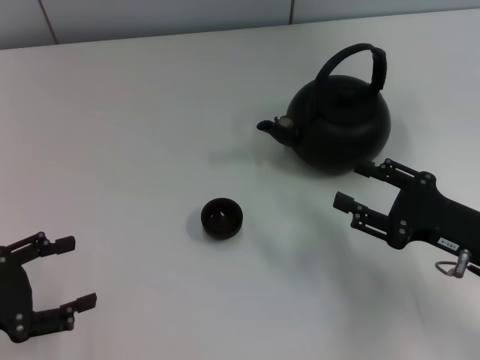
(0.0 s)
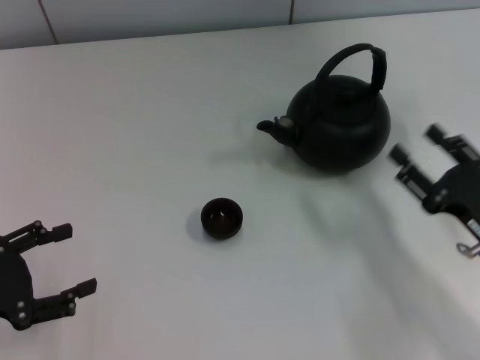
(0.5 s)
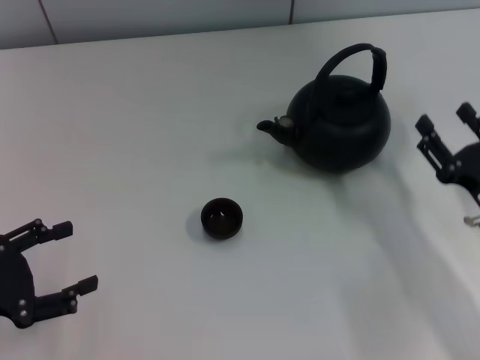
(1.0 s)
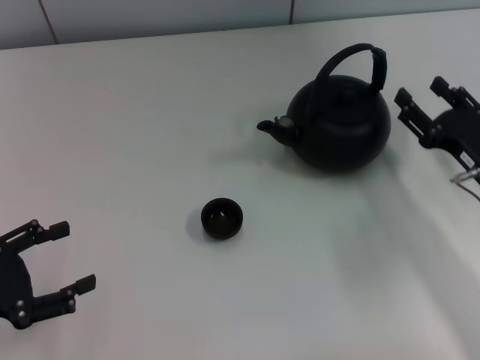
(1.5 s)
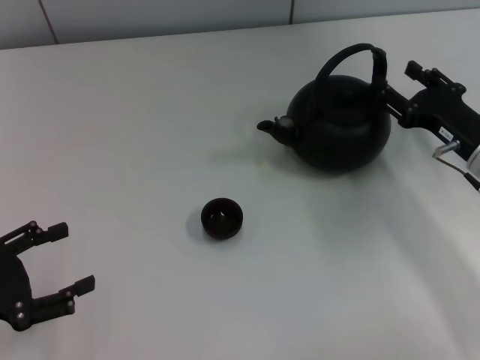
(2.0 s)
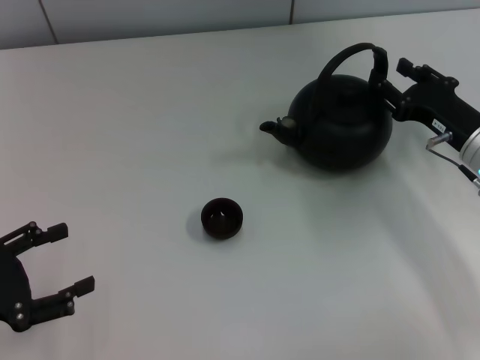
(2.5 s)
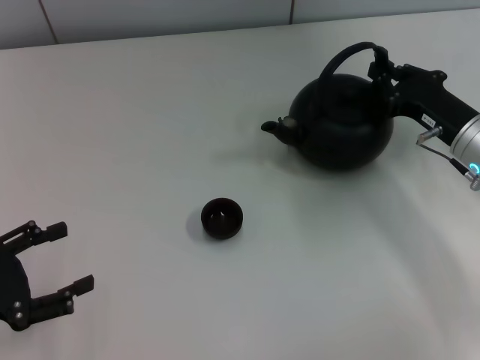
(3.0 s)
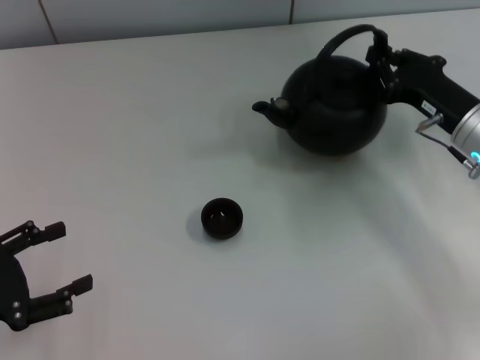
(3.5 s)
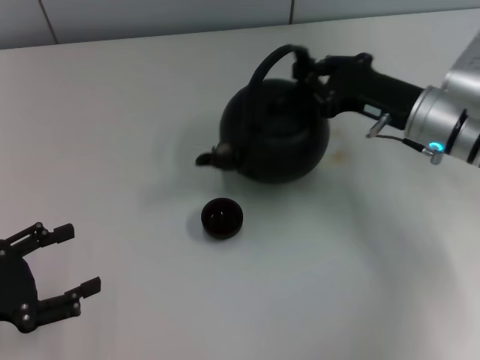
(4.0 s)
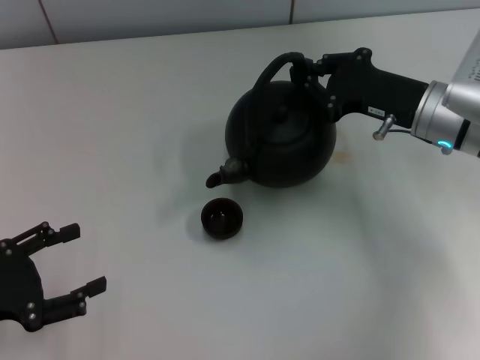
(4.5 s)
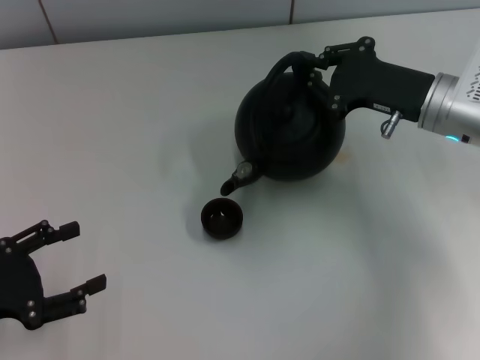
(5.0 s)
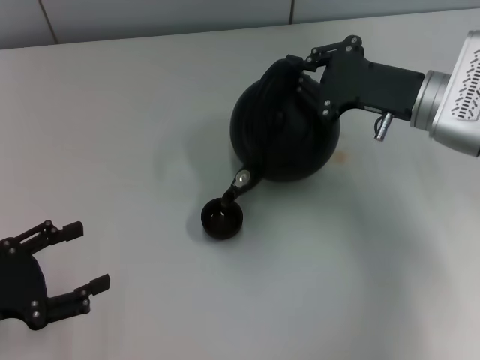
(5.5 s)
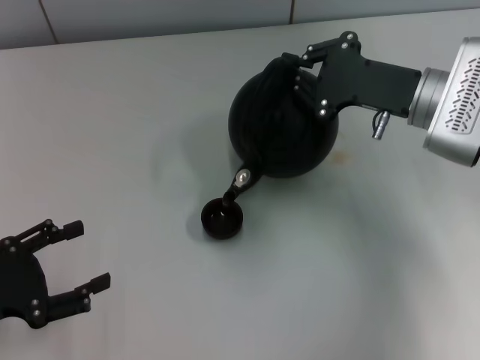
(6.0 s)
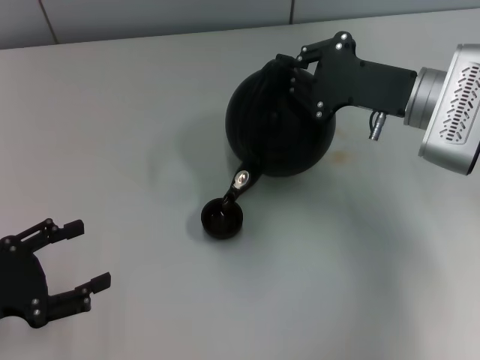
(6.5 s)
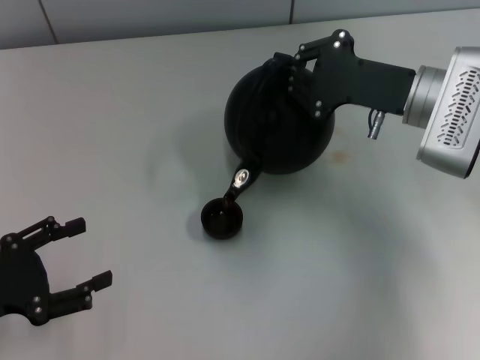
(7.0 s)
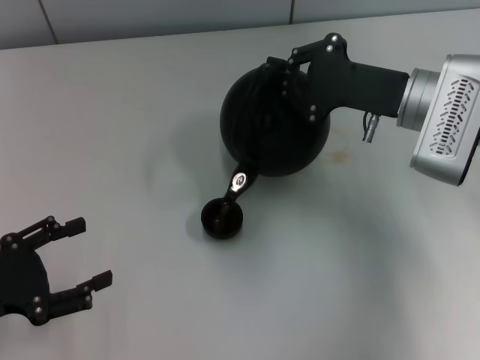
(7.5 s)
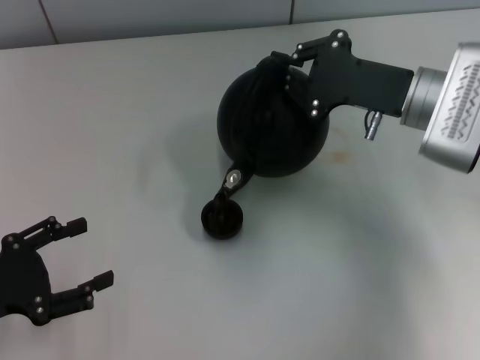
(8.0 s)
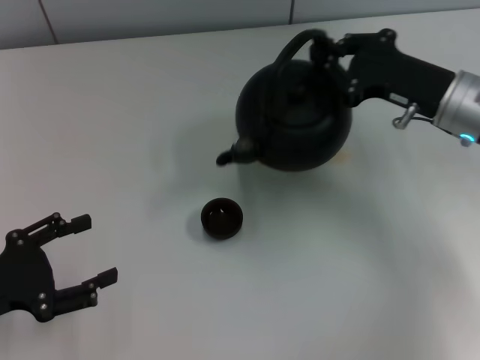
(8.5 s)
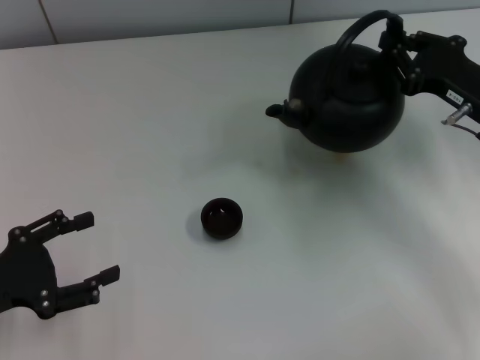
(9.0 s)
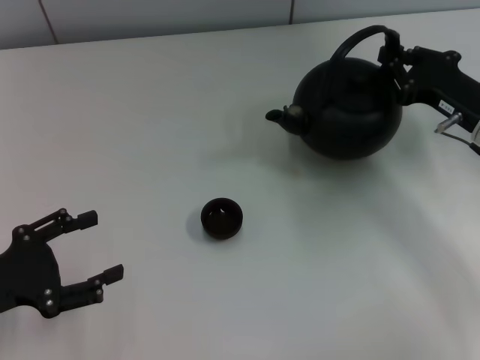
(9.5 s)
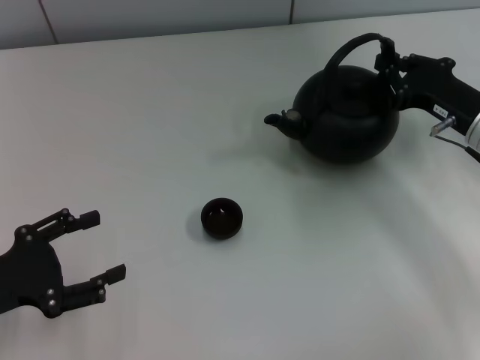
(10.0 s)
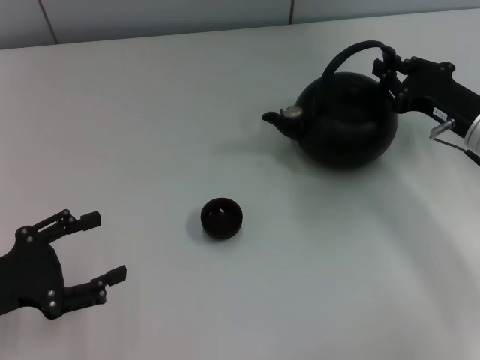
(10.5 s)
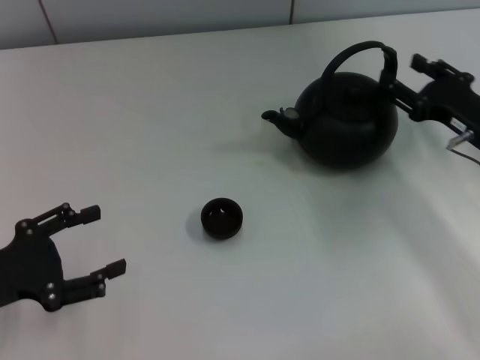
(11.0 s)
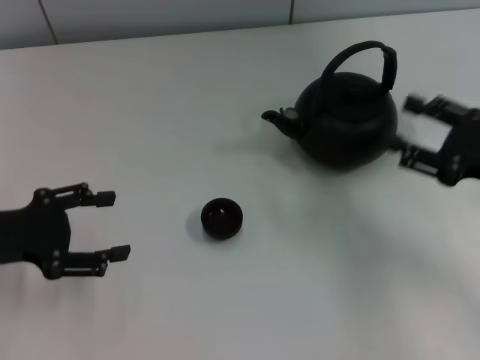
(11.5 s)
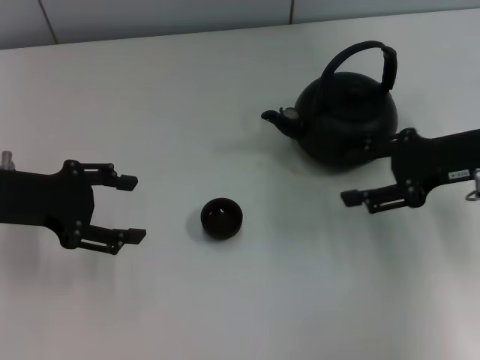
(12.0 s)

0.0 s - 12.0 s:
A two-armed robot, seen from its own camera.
Task of the whole recording: Grasp the handle of the teapot with one hand and pour tea into the teacup.
Step, 0.0 s - 3.5 s: Pick up the teapot with the right gripper.
Step, 8.5 s - 11.0 s: Put down the teapot with the right gripper.
0.0 s - 2.0 s: The right gripper goes approximately 10 cm forward.
2.0 s - 4.0 s: The right gripper shifts roughly 5 cm to the left, and closes up.
6.0 s - 8.0 s: The grippers make only small movements.
8.0 s - 10.0 s: The right gripper travels to the right by approximately 5 cm.
10.0 s - 12.0 s: The left gripper travels forward and upward by about 15 cm, while the right gripper heads upward, covering approximately 5 cm, and opens.
